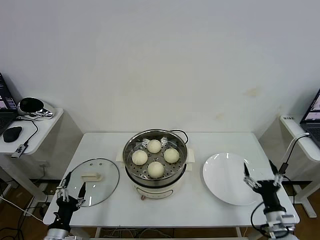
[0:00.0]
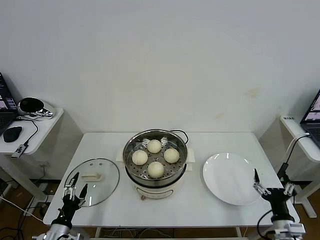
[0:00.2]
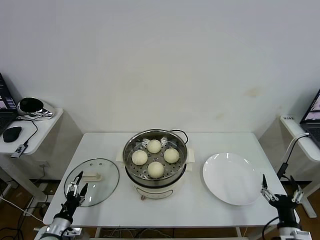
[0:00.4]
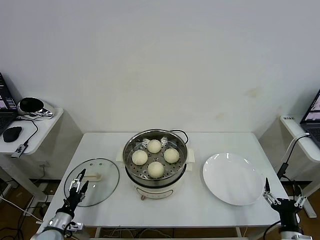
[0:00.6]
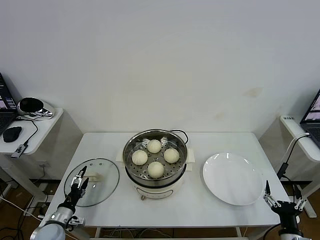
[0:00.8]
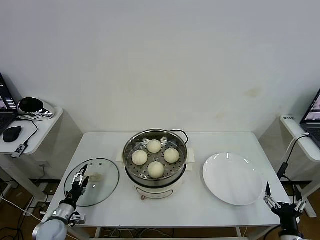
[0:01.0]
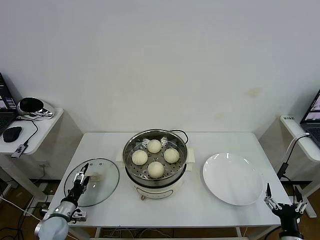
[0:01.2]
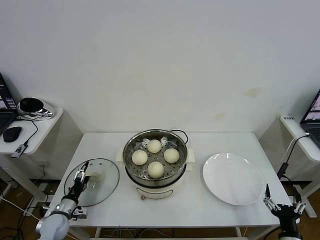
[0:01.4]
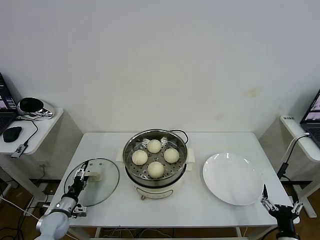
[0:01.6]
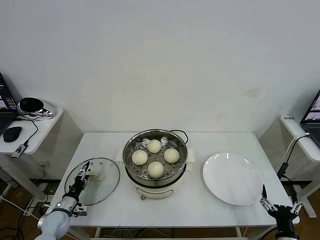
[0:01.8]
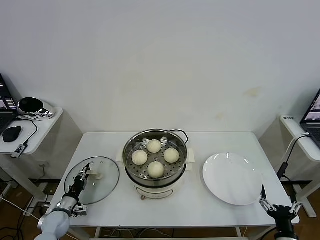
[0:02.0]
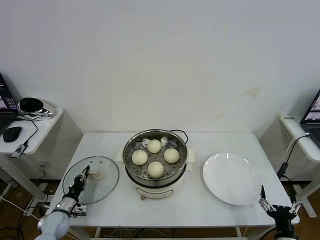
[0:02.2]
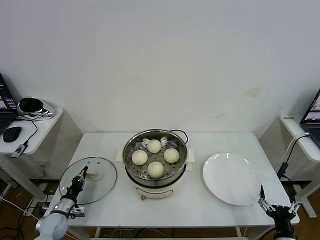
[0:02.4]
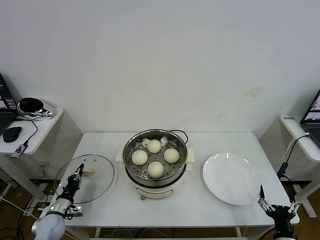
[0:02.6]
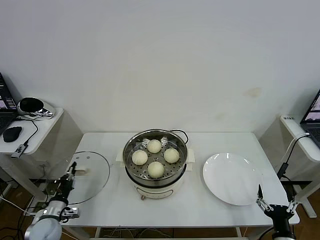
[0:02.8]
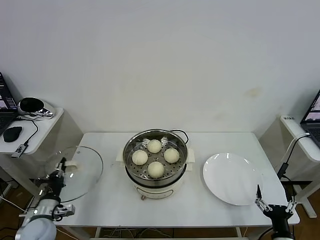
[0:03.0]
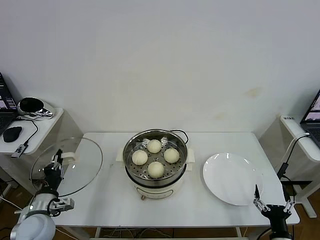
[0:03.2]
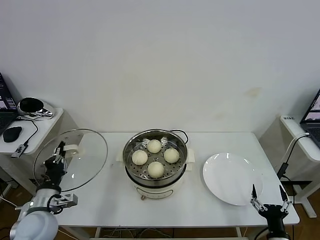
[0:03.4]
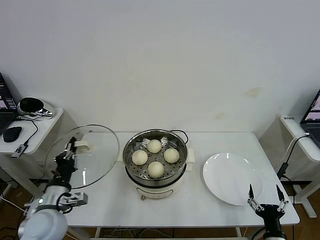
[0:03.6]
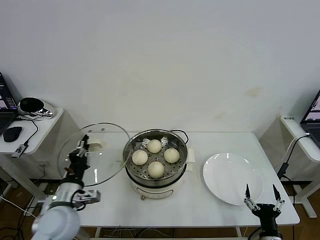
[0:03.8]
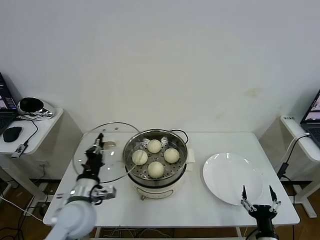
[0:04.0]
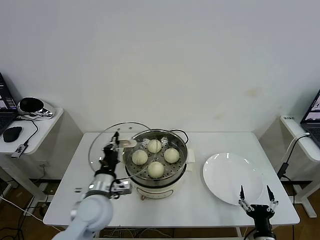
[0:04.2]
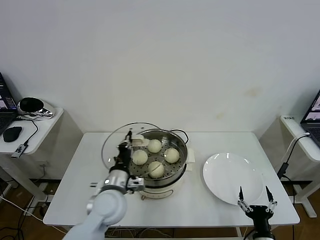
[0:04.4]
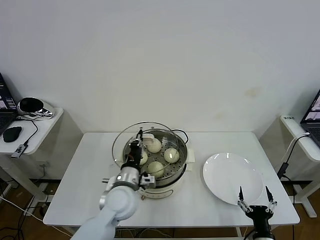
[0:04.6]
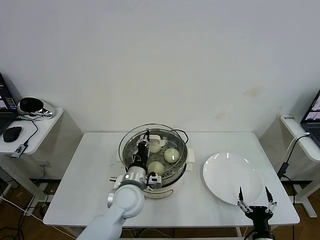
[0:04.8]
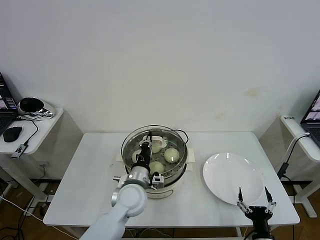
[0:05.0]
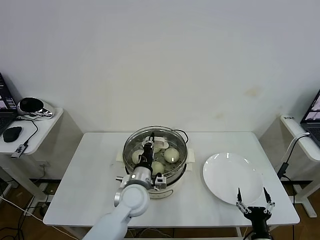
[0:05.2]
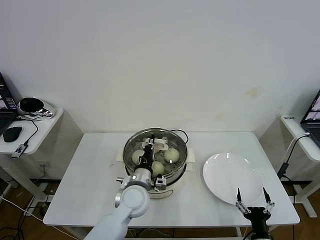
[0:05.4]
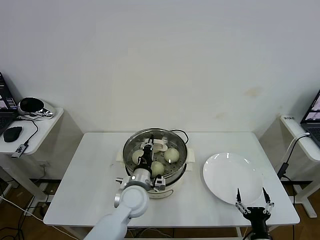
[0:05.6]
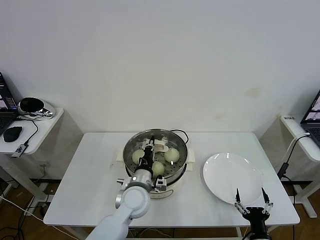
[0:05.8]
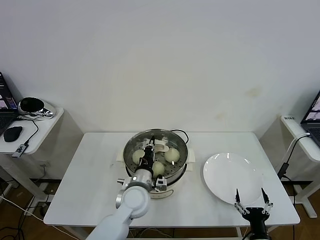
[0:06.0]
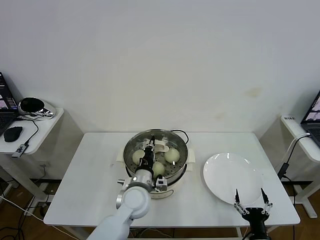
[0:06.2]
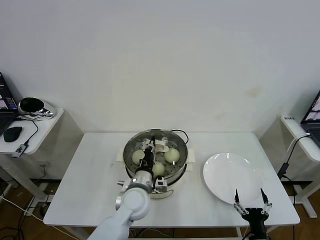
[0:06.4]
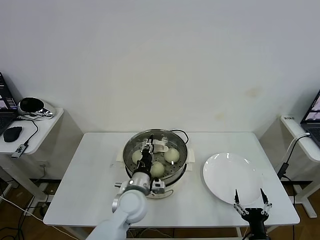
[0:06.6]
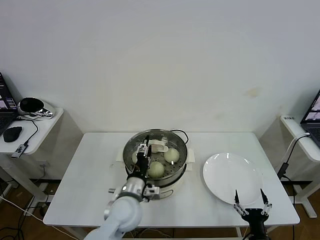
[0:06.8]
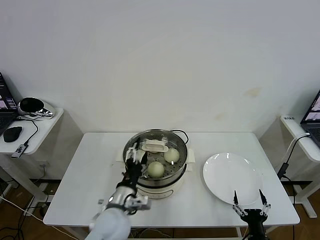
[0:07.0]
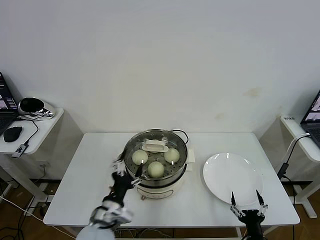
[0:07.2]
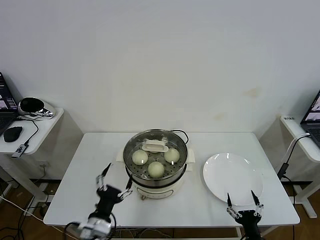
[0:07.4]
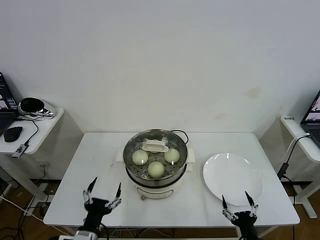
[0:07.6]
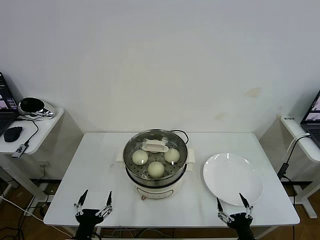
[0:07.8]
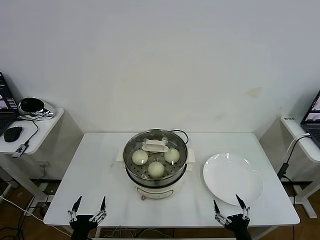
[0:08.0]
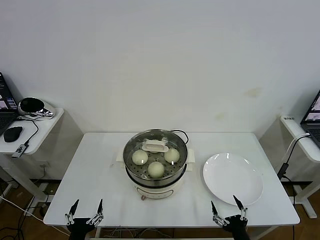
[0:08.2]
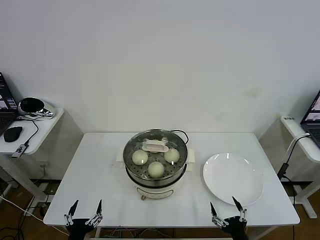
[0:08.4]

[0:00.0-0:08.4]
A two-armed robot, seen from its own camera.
Task of the whole recording: take steamed baozi put them in steamer then cover it.
Step, 0:00.0 to 0:02.4: Grasp the pot lid with left gripper.
Step, 0:02.6 to 0:07.0: Place the pot lid on the steamer with left gripper.
0:00.0 to 0:01.4: The right gripper moves backward, roughly 5 cm, while the left gripper shifts roughly 15 cm forward, downward and to the left.
0:01.4 to 0:02.8: The left gripper closes.
0:02.8 to 0:04.2: The right gripper moves to the left, some 5 cm. Meanwhile the left gripper travels to the right and upward by about 25 cm.
0:04.2 to 0:05.6: The left gripper heads to the right and forward, covering approximately 10 cm.
0:05.6 to 0:07.0: The left gripper shifts roughly 5 cm backward, and opens.
0:07.0 to 0:08.4: The left gripper travels backward, to the left and downward by about 25 cm.

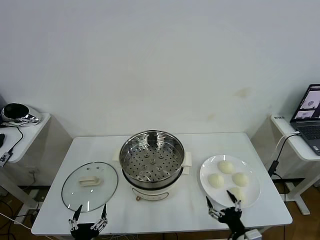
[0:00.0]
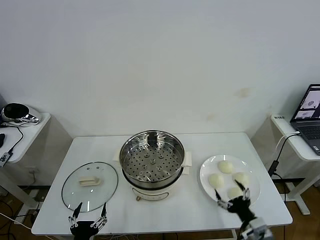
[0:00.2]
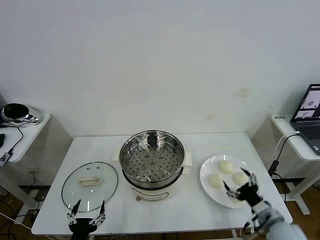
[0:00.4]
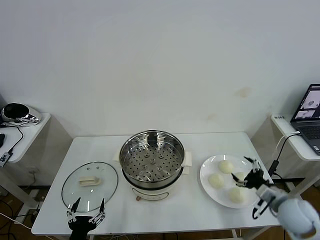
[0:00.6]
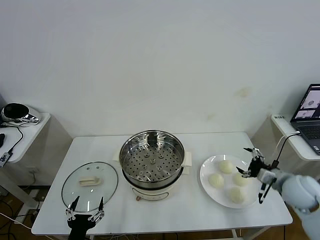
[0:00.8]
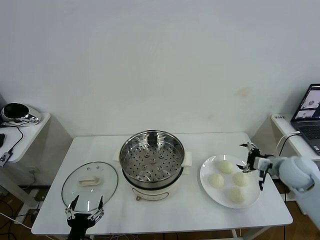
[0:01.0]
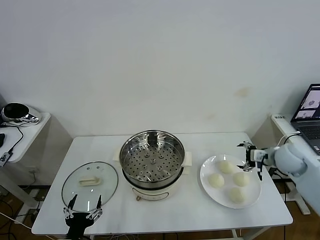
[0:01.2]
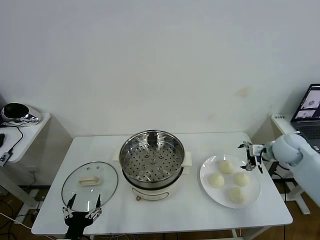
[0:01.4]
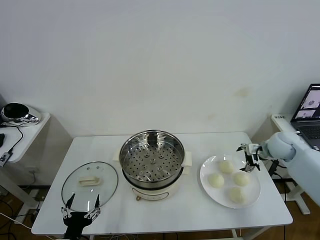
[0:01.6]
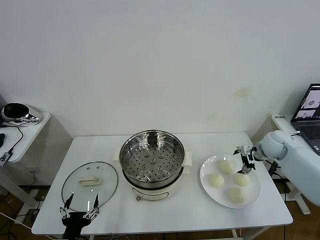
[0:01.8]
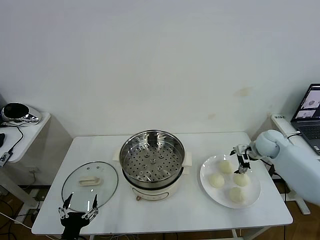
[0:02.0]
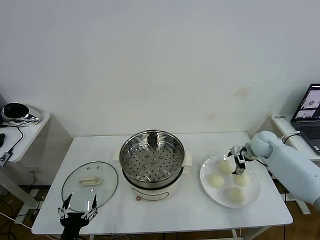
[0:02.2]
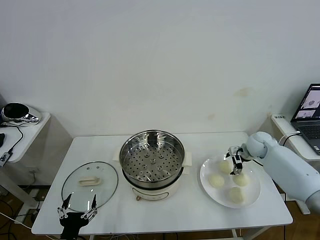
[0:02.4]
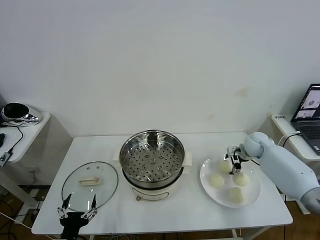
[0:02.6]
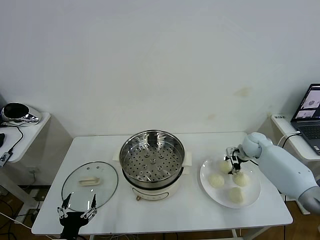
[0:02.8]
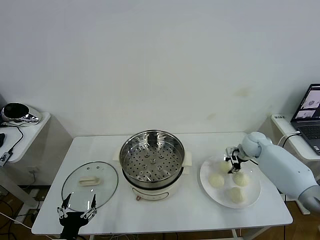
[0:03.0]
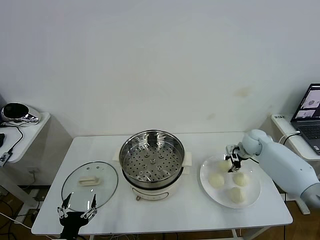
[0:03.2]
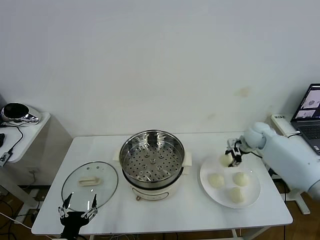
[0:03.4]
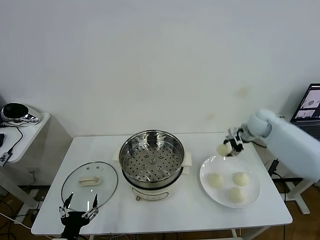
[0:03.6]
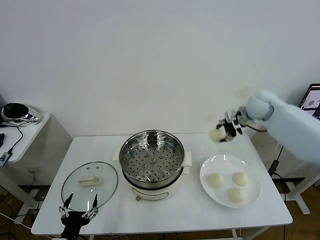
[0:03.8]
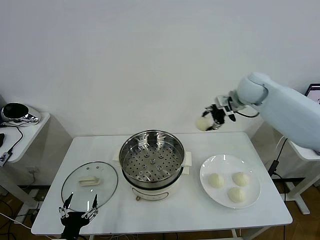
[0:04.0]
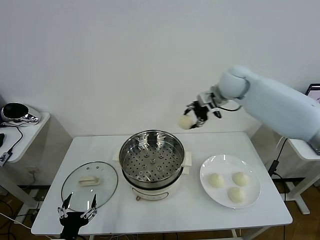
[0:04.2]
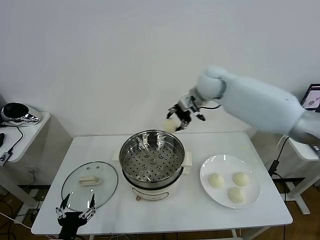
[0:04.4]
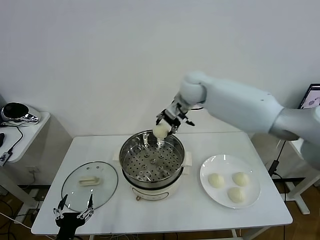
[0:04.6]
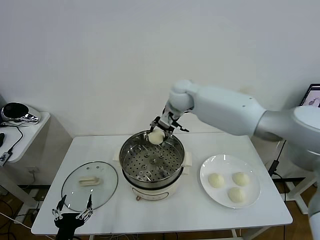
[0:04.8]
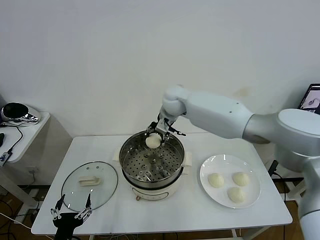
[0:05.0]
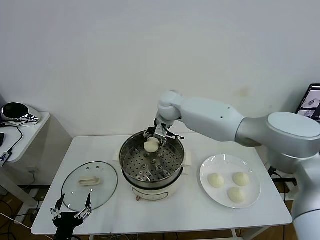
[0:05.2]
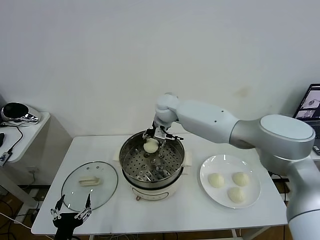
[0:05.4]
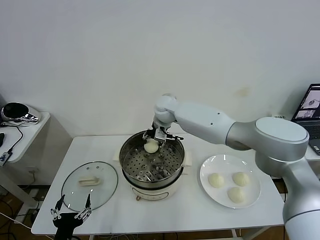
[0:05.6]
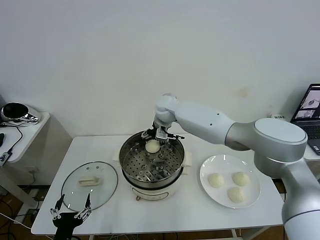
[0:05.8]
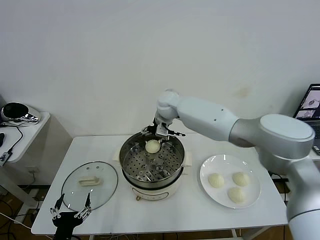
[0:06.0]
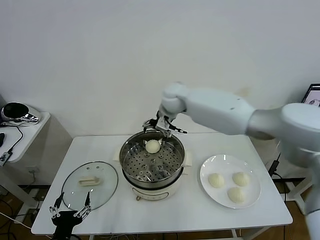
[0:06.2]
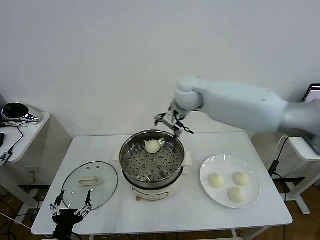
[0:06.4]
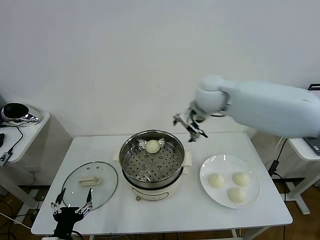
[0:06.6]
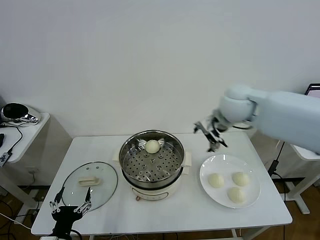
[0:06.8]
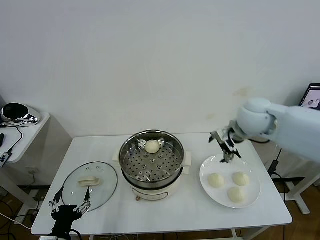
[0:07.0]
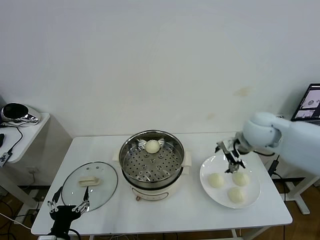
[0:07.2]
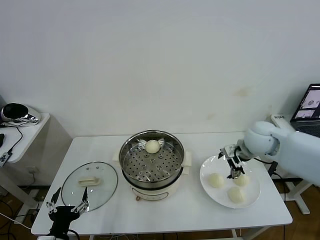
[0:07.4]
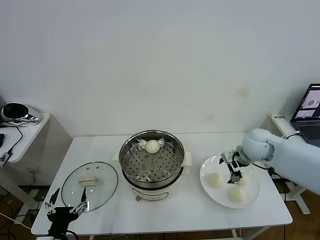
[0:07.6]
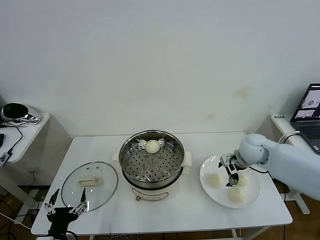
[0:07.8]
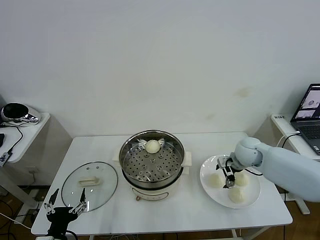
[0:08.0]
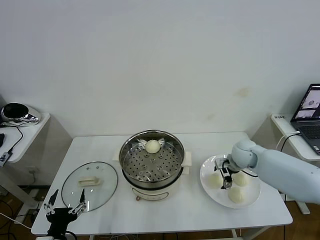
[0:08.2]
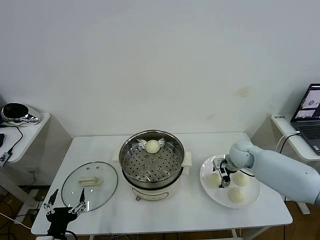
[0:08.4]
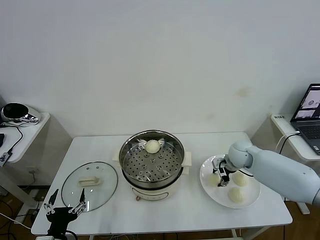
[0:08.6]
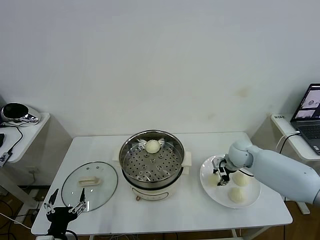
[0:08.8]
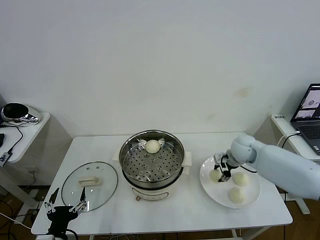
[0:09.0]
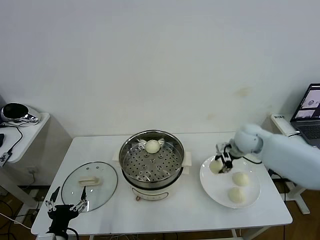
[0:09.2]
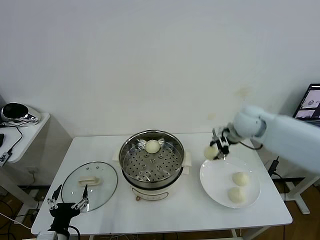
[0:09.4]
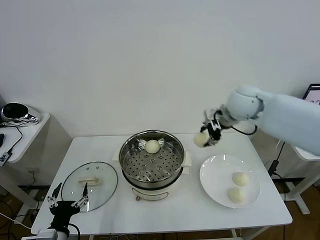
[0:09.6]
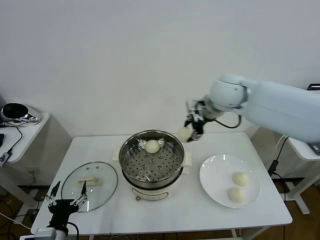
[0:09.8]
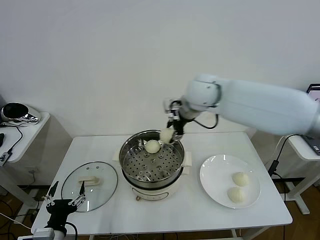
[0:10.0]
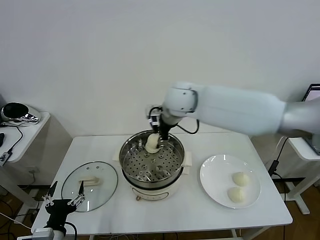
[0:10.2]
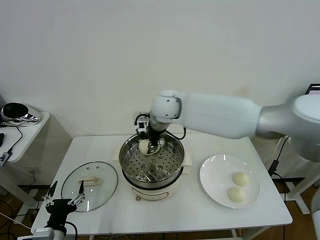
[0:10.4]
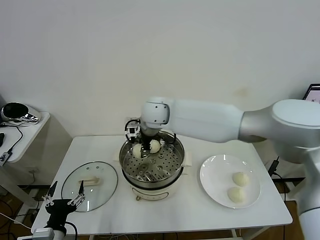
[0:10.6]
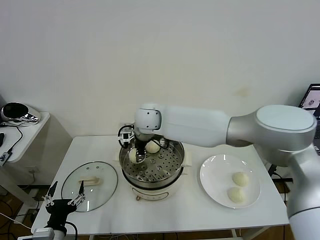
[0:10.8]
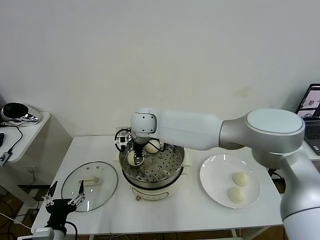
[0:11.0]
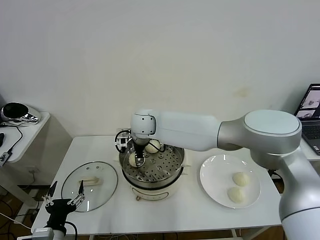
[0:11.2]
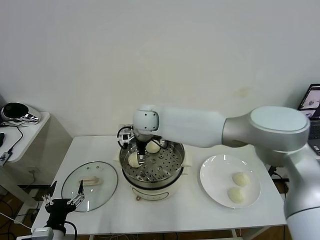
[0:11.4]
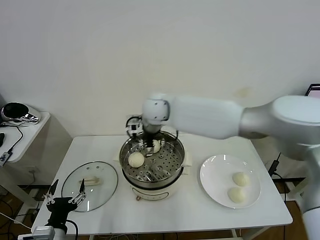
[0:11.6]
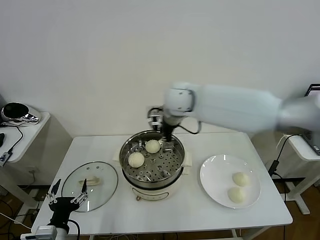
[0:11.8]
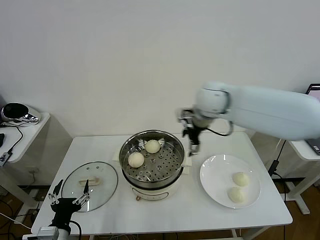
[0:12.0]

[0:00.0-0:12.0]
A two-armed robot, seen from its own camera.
Task of the whole recording: take steamed baozi put them in steamer then cover it.
Step, 0:00.0 to 0:02.8: Grasp the baozi in the plate with right gripper.
Step, 0:03.0 to 0:05.8: Place the baozi on the steamer with right gripper.
Step, 0:06.0 to 0:08.6: Grasp the baozi in the plate with right gripper.
Step, 0:08.8 to 0:11.4: Place the baozi on the steamer with right gripper.
0:01.6 to 0:03.0: The right gripper is displaced downward and forward by approximately 10 cm, and closes its fingers.
0:03.0 to 0:04.4: The right gripper travels to the left and upward by roughly 35 cm.
0:04.4 to 0:06.0: The right gripper shifts about 10 cm to the left and downward, and opens its fingers.
0:06.0 to 0:07.6: The right gripper shifts roughly 30 cm to the right and backward.
0:07.6 to 0:09.0: The right gripper moves approximately 10 cm downward and comes back, and closes its fingers.
0:09.0 to 0:10.4: The right gripper is displaced to the left and upward by approximately 35 cm.
0:10.4 to 0:12.0: The right gripper travels to the right by approximately 20 cm, and opens its fingers.

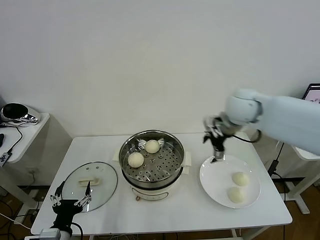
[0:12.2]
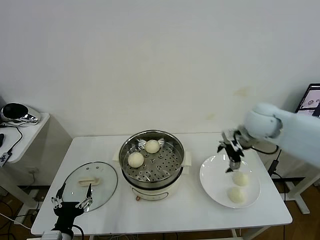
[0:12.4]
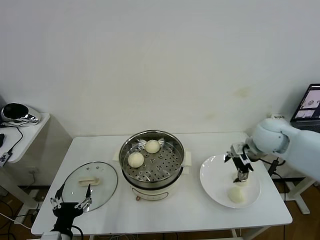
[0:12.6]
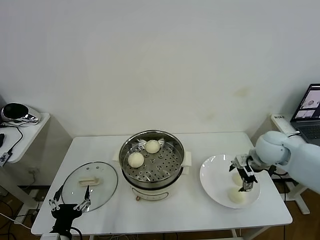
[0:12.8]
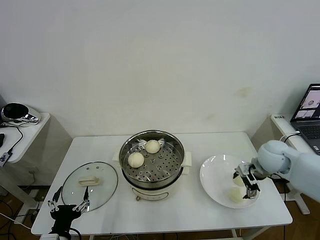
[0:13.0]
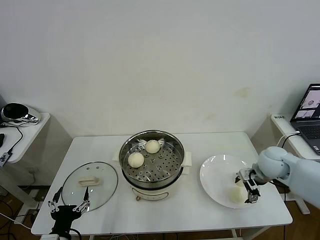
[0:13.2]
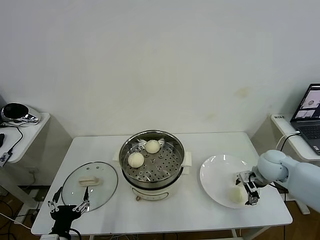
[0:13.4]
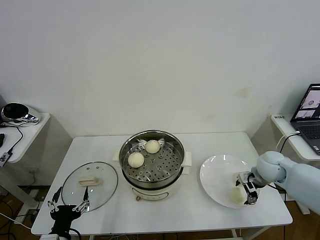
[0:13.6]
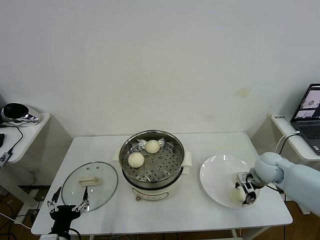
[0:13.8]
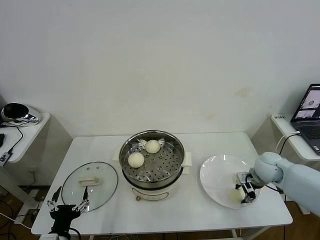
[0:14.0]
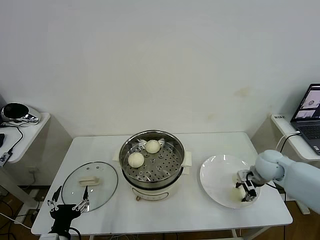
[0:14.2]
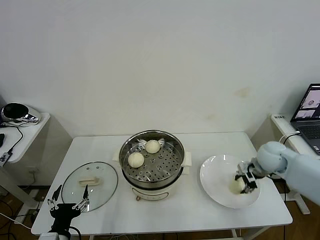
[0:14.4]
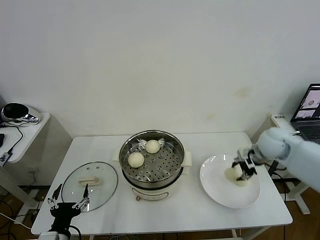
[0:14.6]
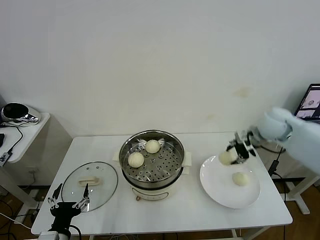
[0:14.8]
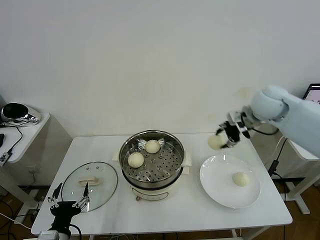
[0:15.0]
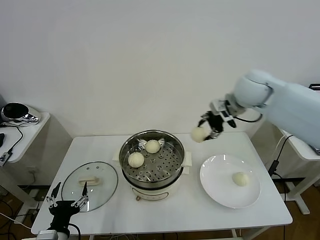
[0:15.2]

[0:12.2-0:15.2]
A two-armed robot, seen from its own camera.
Task of the whole recording: take steamed baozi put them in steamer then cover it.
Step, 0:12.2 to 0:14.0: Grasp the baozi in the plate with right gripper.
0:12.2 to 0:13.8: The right gripper travels downward and to the right by about 25 cm, and closes up.
0:13.8 to 0:15.2: The right gripper shifts roughly 30 cm upward and to the left.
